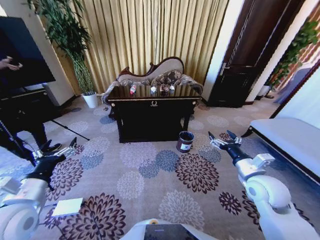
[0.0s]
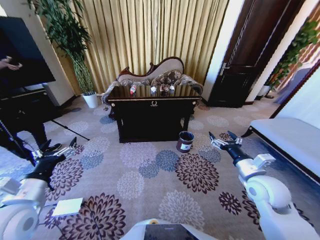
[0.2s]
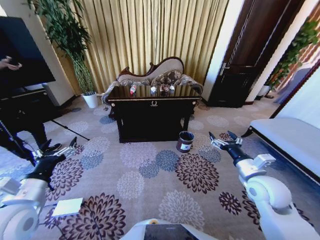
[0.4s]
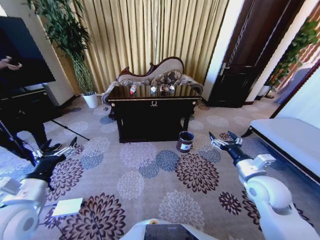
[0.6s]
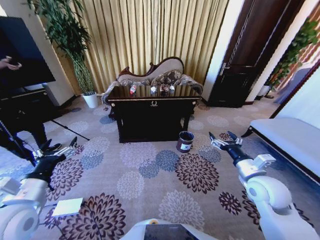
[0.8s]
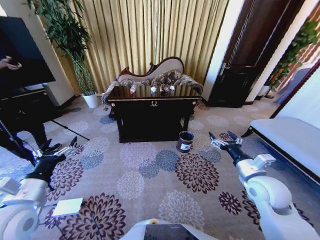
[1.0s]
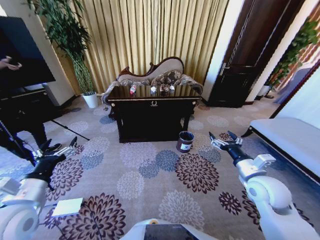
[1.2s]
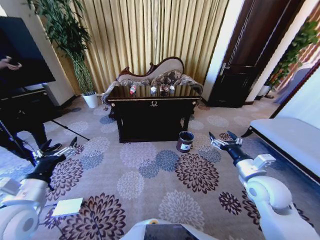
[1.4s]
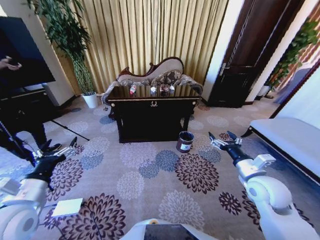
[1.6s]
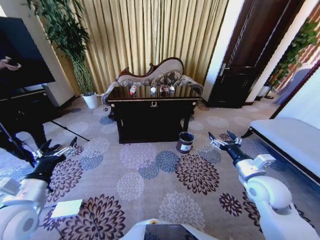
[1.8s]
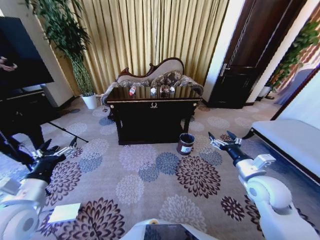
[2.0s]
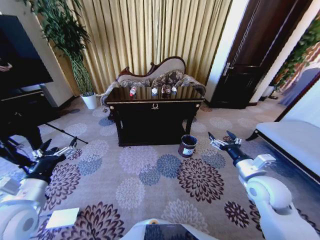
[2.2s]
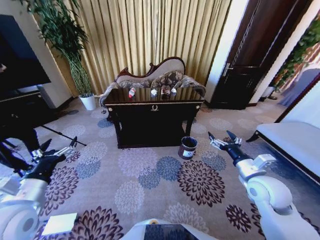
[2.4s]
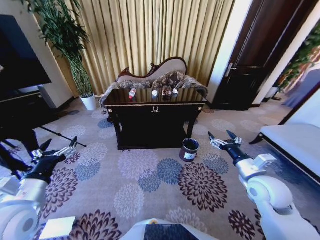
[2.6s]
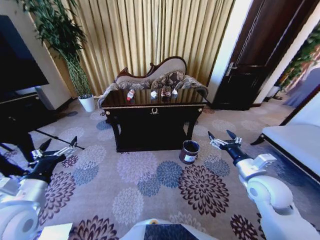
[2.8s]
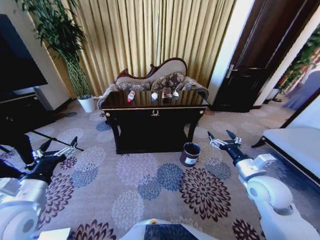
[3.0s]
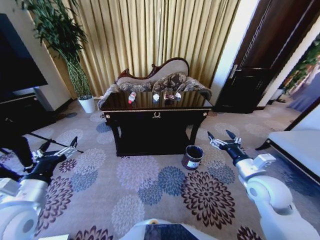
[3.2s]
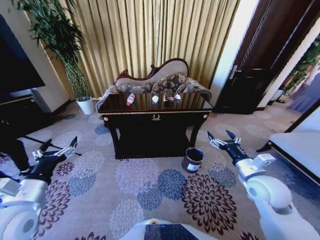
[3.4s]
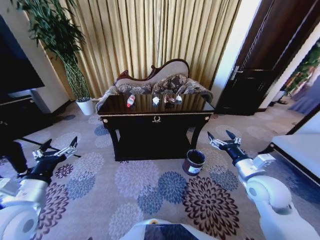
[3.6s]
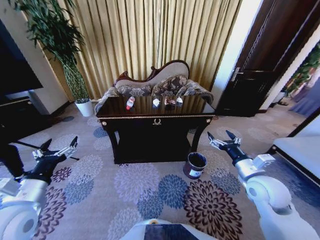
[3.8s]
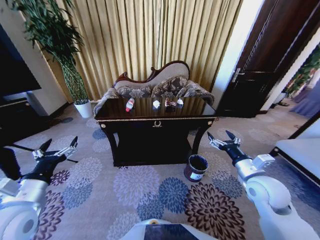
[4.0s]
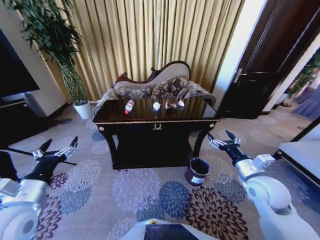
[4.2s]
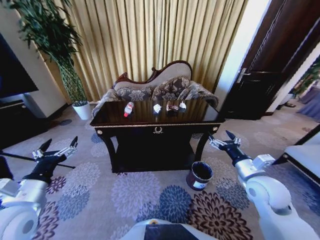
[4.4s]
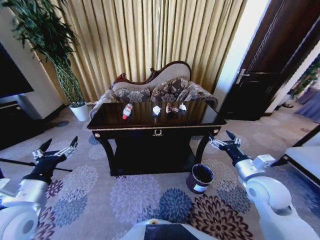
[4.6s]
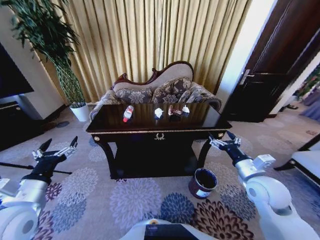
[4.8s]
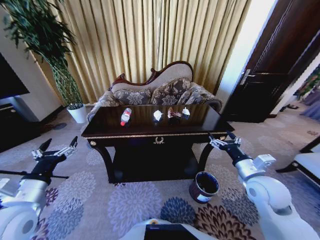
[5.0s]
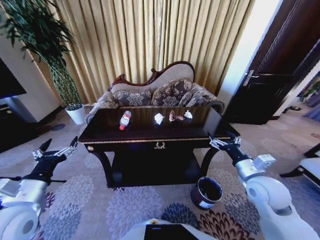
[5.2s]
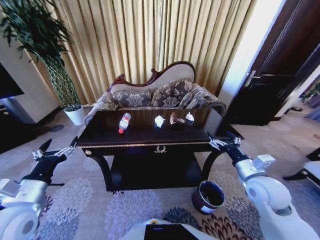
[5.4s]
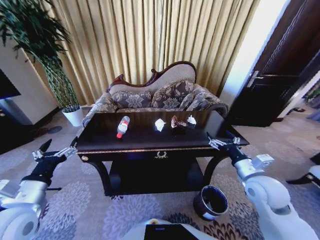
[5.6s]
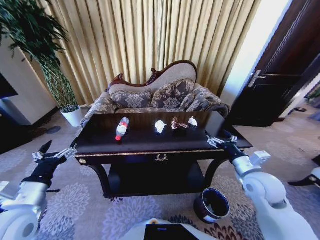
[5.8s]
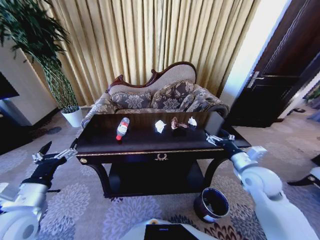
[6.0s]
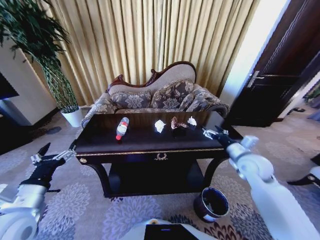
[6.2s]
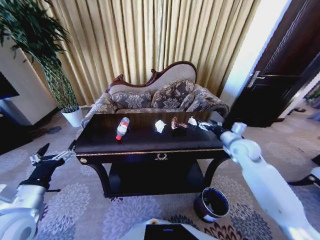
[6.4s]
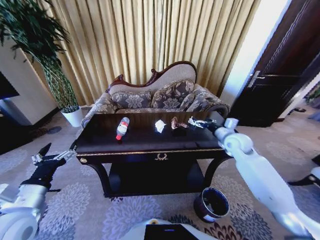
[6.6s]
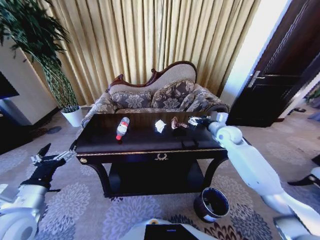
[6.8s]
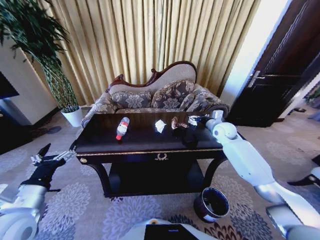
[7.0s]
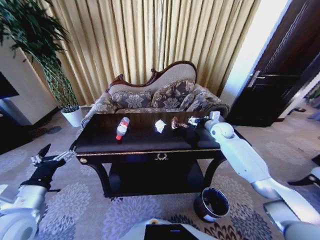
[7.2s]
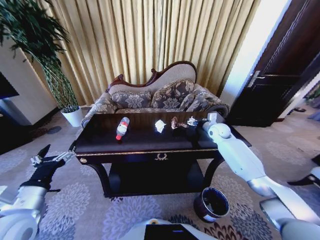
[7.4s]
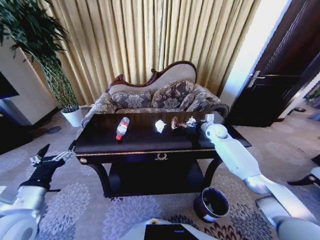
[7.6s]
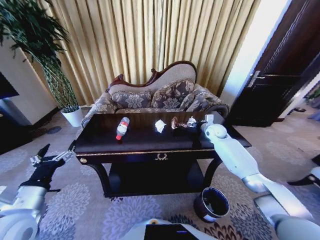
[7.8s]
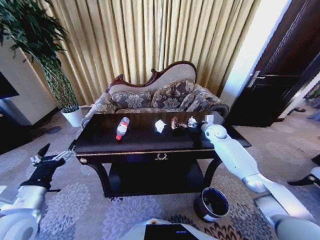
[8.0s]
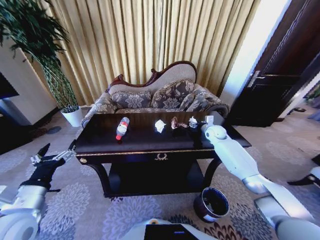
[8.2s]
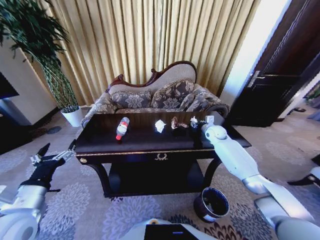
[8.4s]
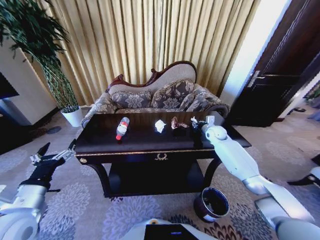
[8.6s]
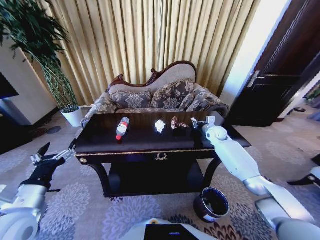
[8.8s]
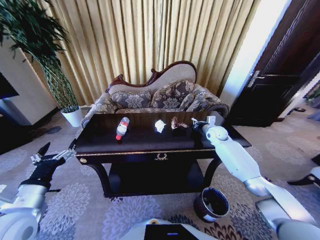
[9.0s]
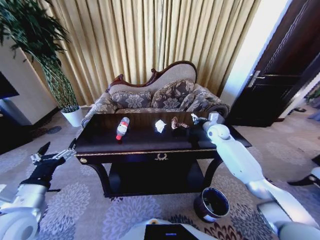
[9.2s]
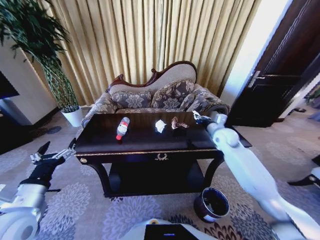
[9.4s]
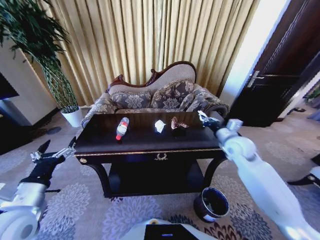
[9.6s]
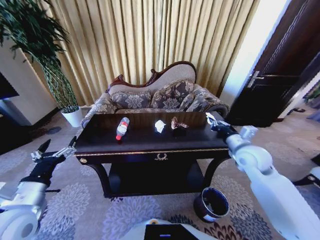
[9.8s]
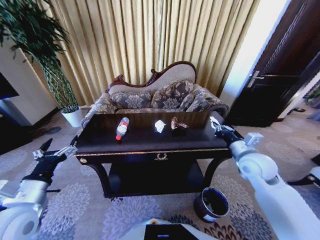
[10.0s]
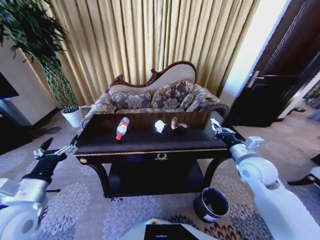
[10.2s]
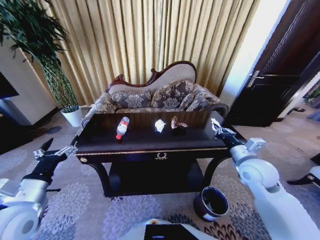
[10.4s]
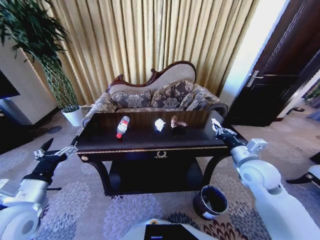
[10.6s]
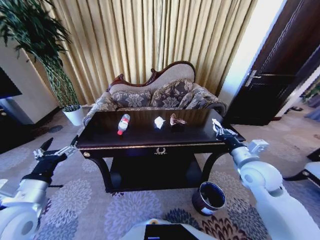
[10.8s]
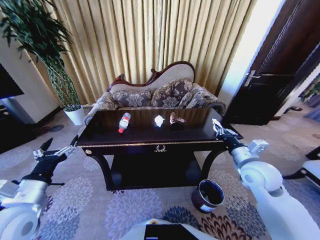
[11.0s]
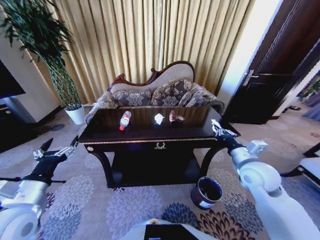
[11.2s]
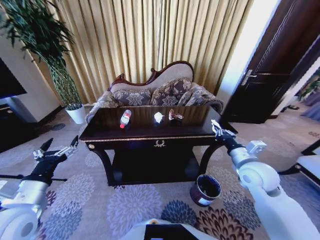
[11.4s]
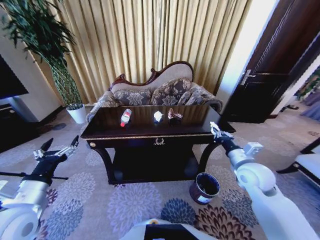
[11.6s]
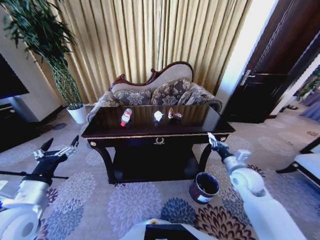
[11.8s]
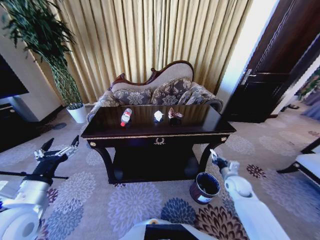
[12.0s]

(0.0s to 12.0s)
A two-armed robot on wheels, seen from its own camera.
Task of the whole recording: Move to the front of the table and place the trash on the table into the trash bin.
6.0s - 7.6s: The right gripper shifts approximately 25 cm forward.
7.6s - 9.0s: The right gripper closes.
9.0s - 10.4s: The right gripper goes some 25 cm backward.
10.4s - 12.0s: The right gripper shifts roughly 20 cm downward.

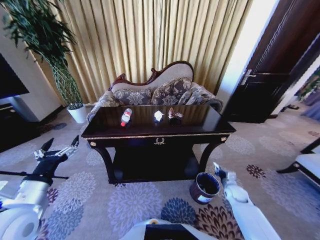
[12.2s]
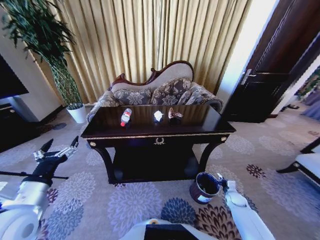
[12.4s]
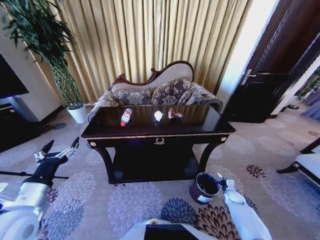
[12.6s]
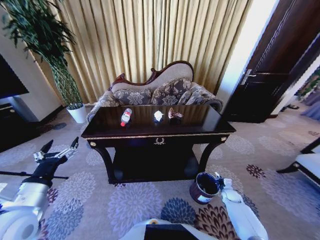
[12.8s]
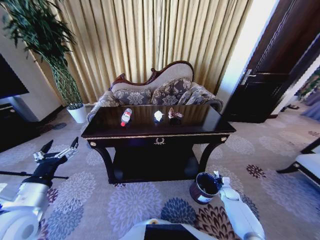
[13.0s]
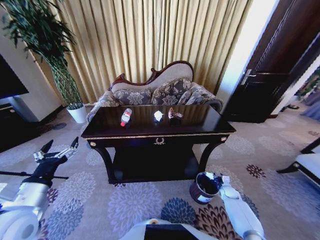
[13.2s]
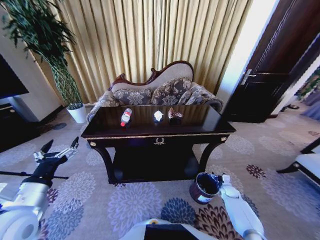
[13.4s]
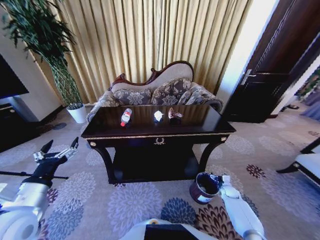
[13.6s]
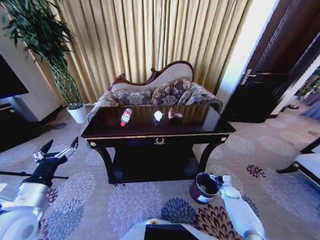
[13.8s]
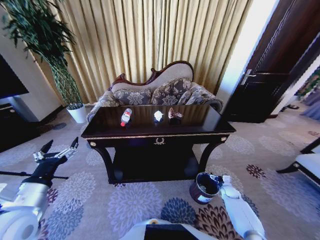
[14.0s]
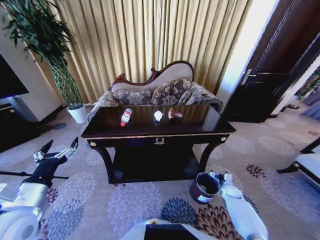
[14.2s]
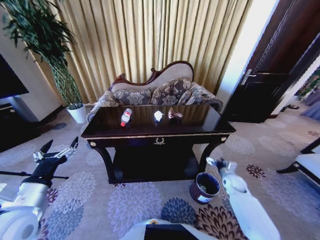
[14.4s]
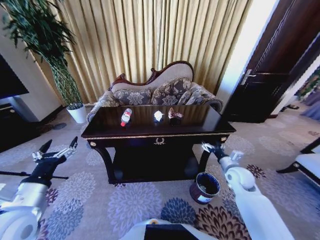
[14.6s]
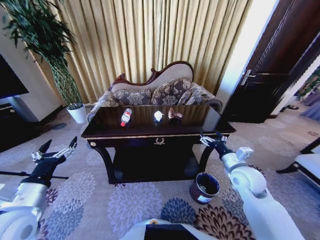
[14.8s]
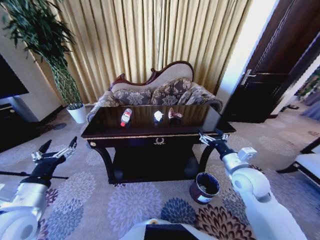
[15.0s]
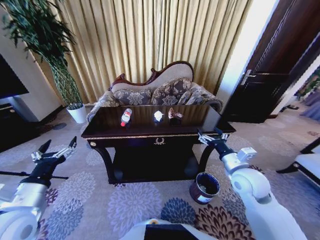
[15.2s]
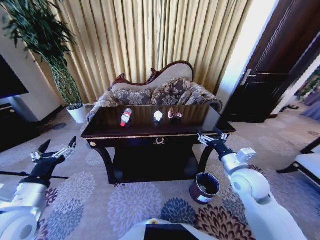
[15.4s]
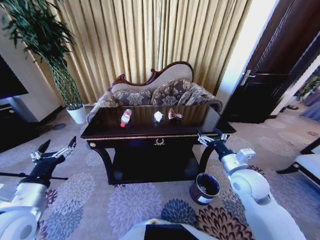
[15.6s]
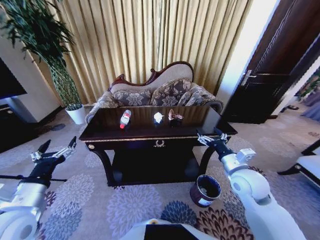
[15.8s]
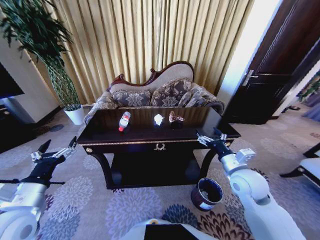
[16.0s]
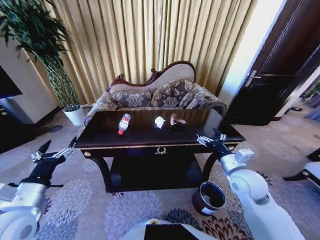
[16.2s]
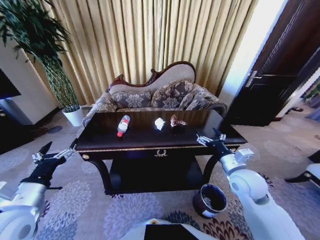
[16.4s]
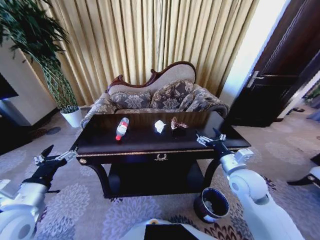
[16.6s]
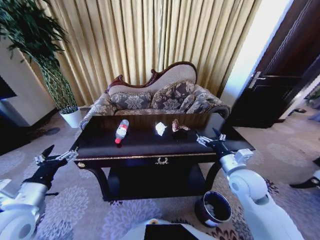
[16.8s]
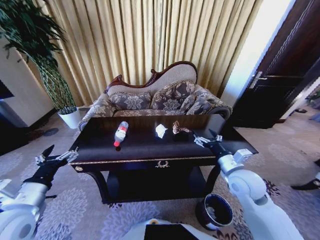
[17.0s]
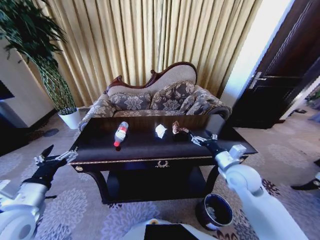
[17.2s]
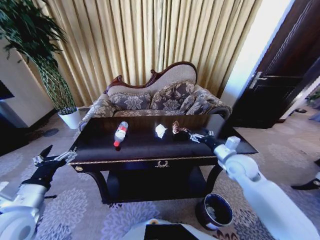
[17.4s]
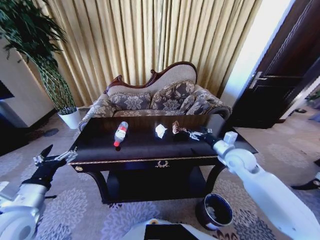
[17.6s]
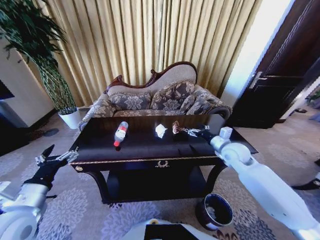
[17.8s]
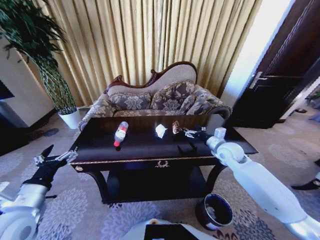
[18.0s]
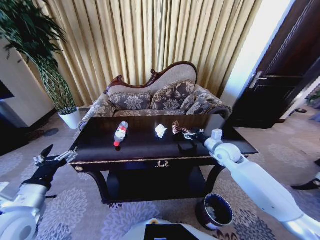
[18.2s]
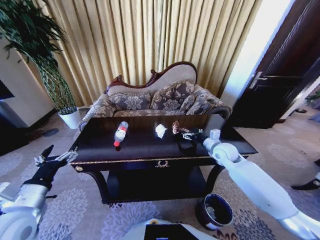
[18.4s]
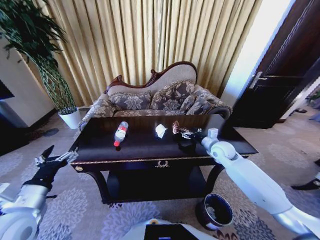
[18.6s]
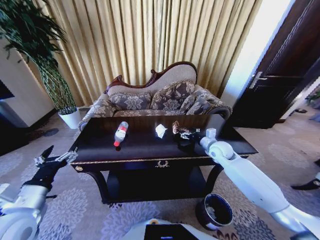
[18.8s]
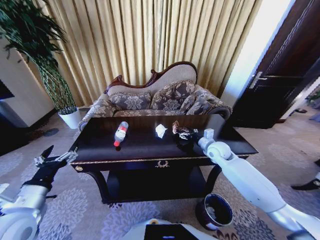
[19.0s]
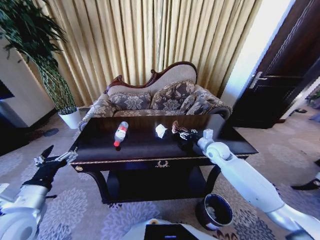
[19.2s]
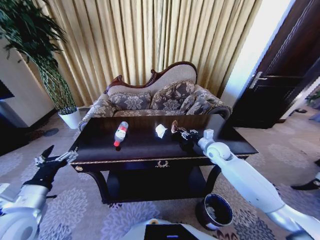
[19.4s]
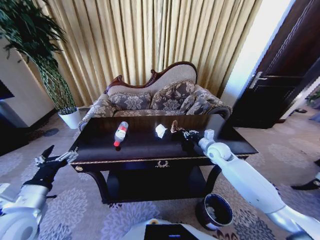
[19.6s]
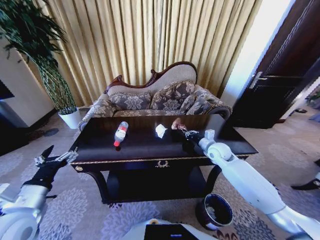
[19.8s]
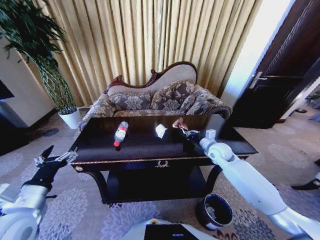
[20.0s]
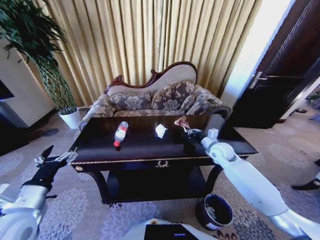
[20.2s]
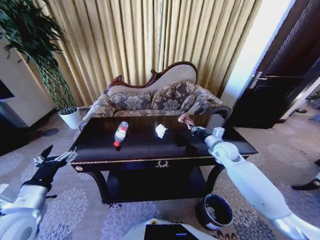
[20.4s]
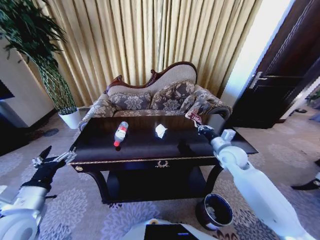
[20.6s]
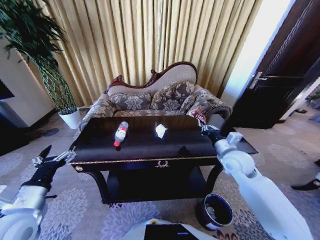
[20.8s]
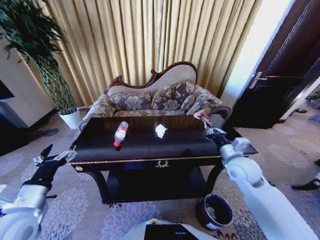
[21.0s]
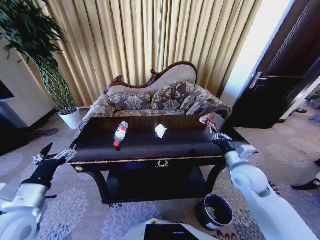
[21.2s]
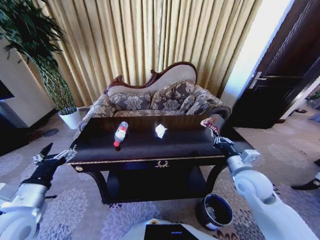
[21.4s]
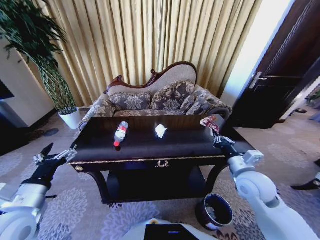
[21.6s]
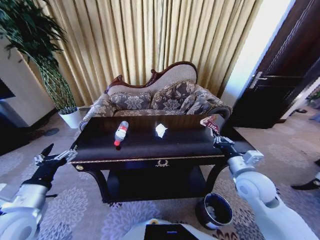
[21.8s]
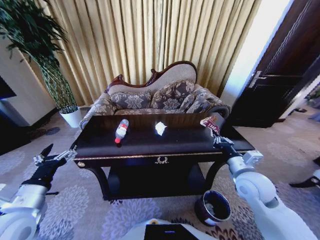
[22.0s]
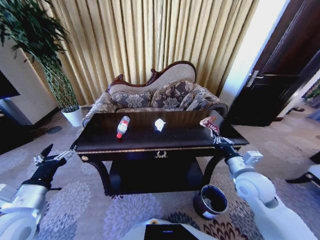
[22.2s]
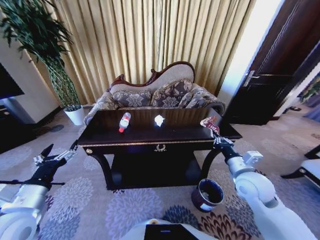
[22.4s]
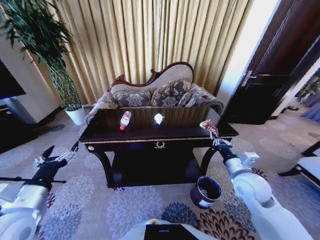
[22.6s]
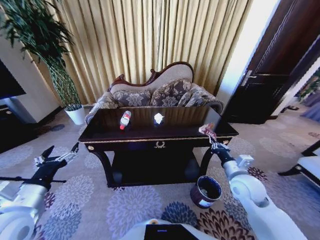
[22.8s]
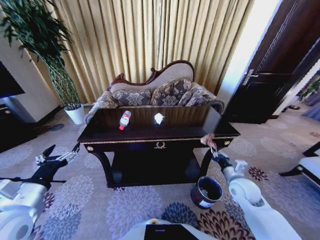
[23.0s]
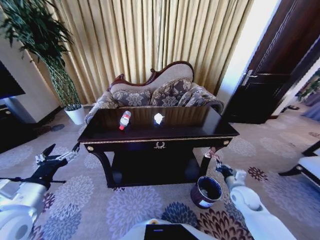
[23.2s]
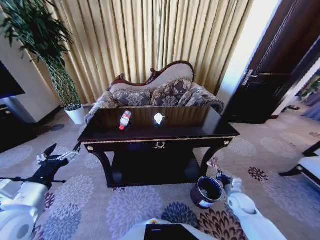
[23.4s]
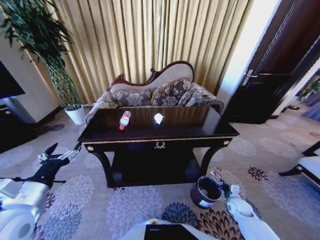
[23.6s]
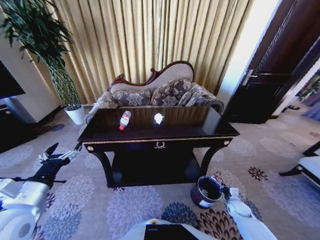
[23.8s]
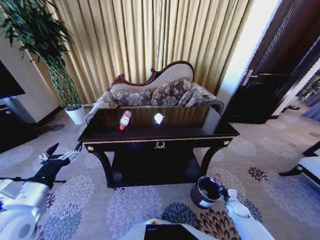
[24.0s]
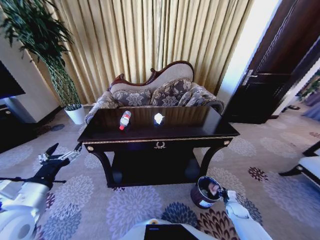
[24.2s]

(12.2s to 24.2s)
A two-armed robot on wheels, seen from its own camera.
Task of the whole recording: Move to the front of the table and place the trash on the table into the trash bin.
12.2s - 13.8s: The right gripper travels downward by roughly 10 cm, and opens up.
13.8s - 15.2s: The right gripper shifts about 40 cm upward and to the left.
16.6s - 18.2s: The right gripper is displaced forward by about 15 cm.
18.2s - 19.8s: The right gripper closes its fingers.
19.8s - 21.2s: The right gripper moves backward, roughly 15 cm.
22.6s - 24.2s: The right gripper travels downward by some 35 cm.
